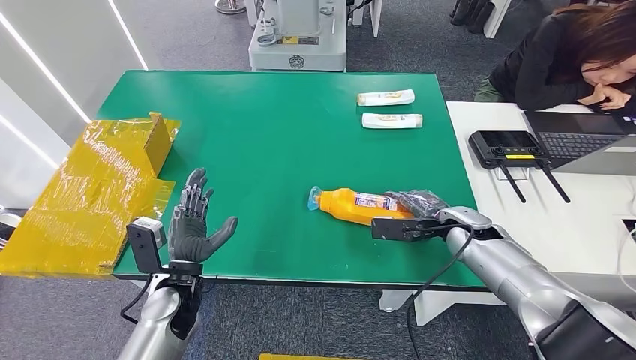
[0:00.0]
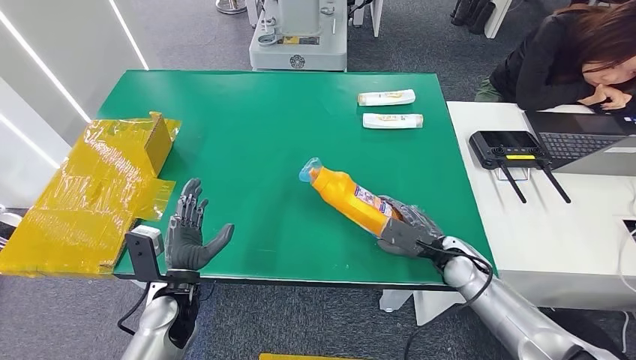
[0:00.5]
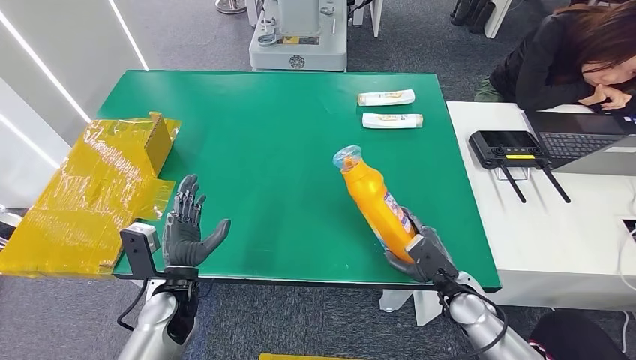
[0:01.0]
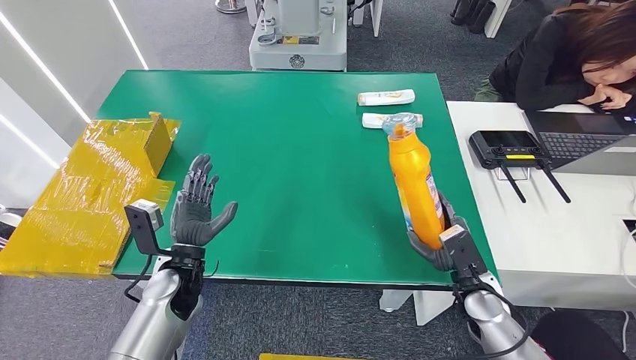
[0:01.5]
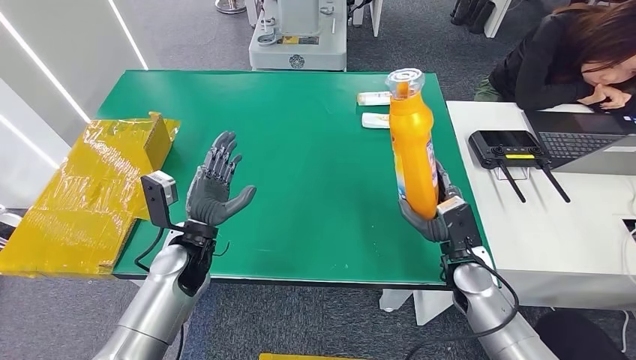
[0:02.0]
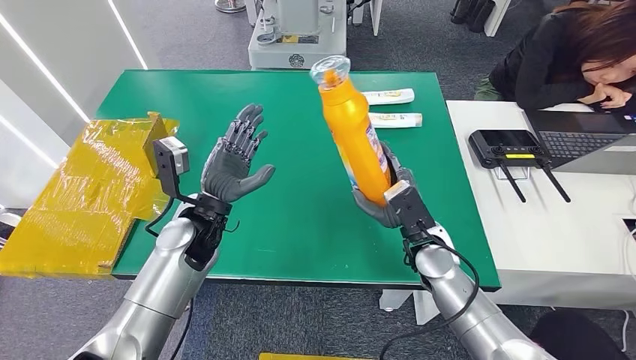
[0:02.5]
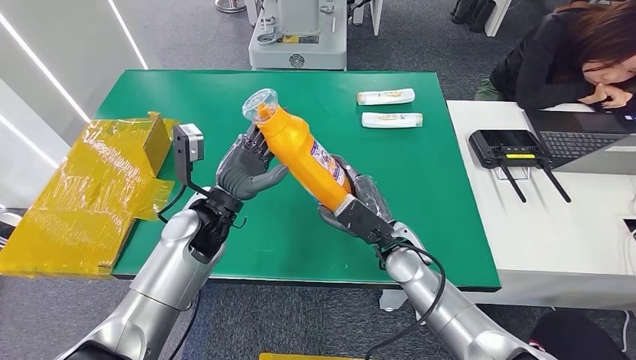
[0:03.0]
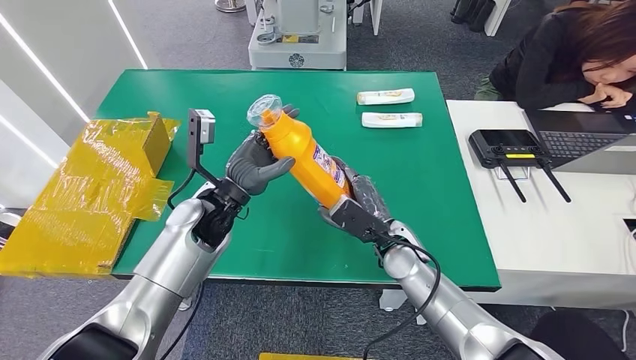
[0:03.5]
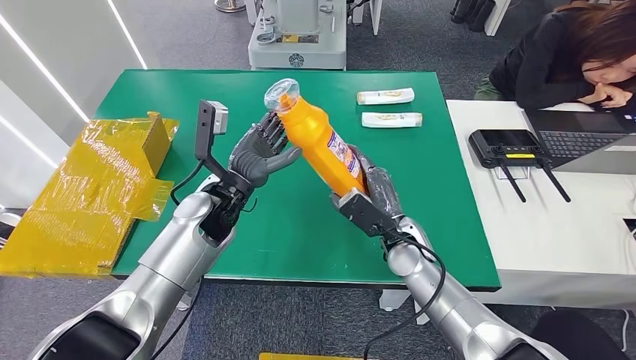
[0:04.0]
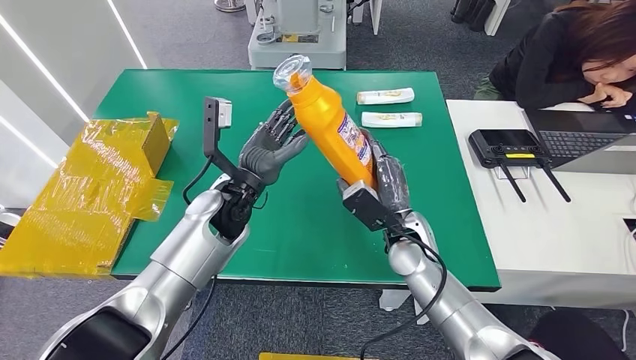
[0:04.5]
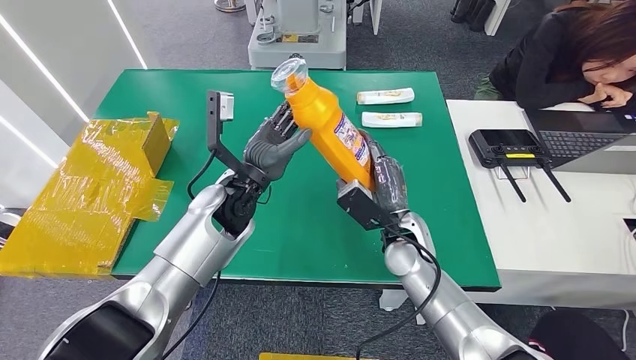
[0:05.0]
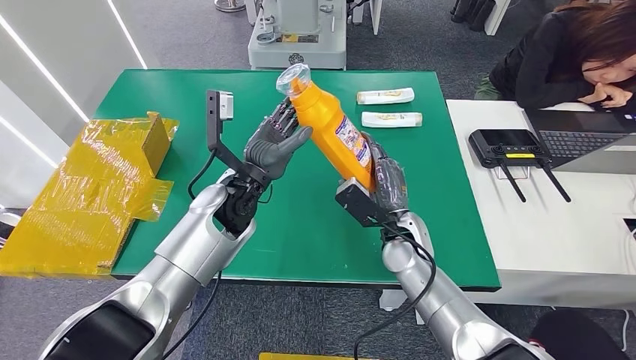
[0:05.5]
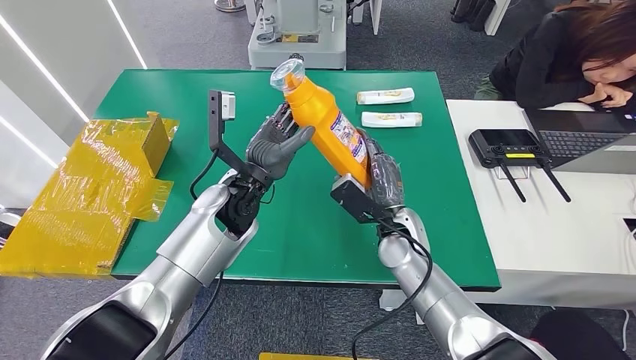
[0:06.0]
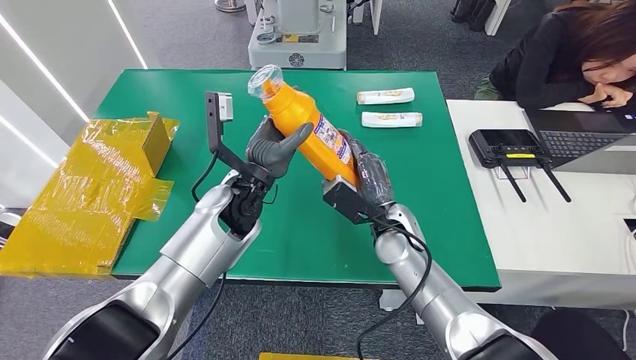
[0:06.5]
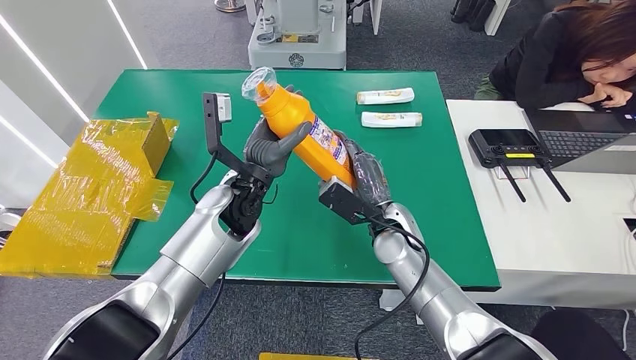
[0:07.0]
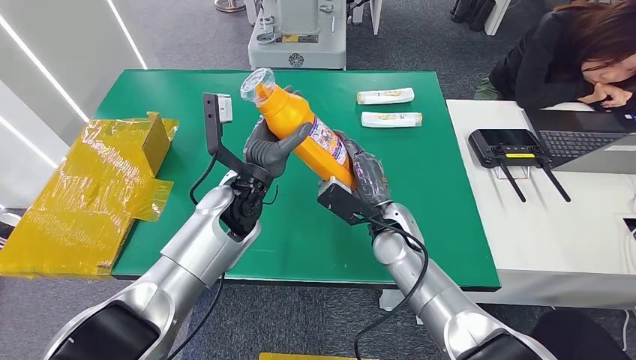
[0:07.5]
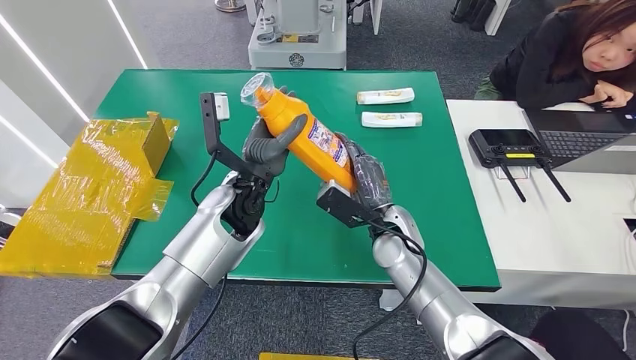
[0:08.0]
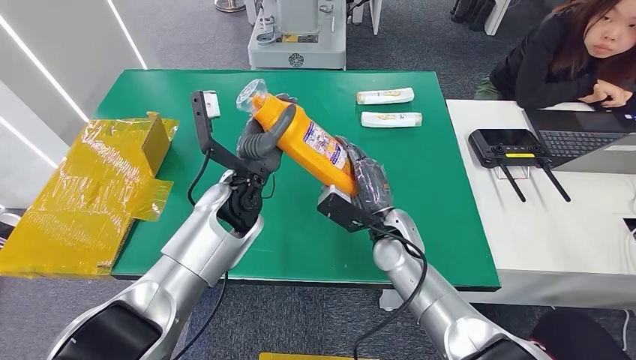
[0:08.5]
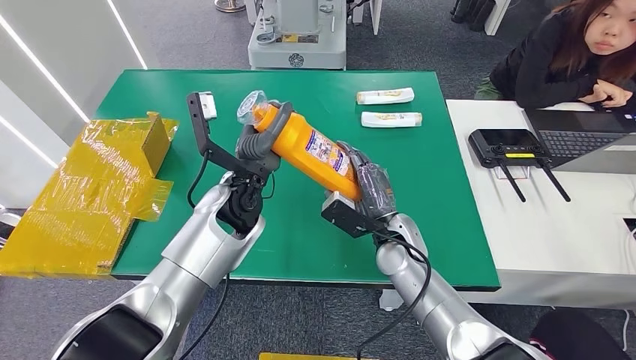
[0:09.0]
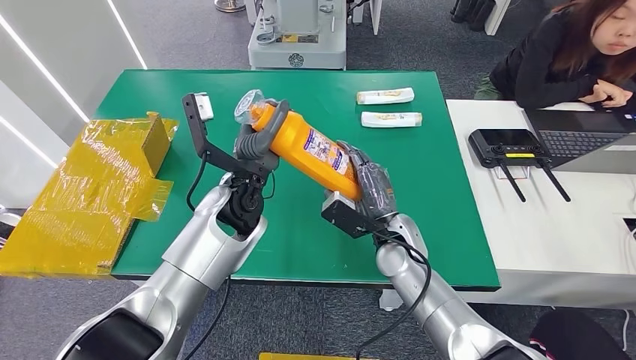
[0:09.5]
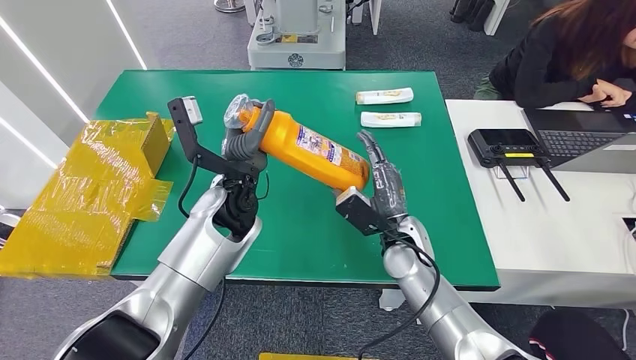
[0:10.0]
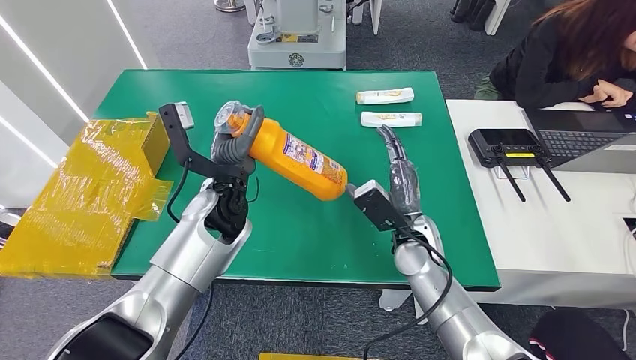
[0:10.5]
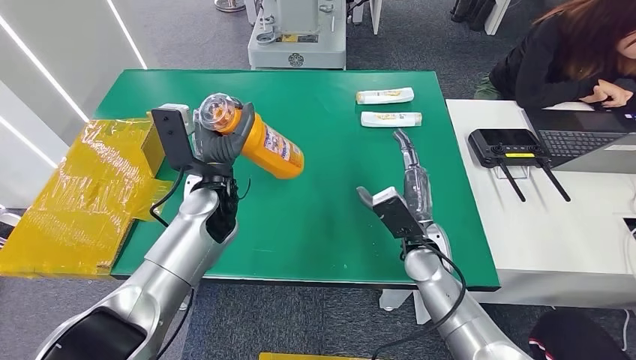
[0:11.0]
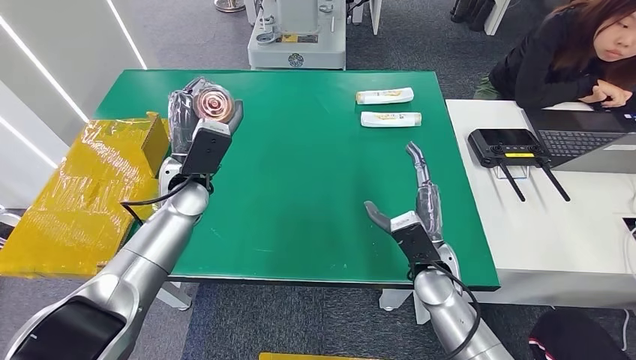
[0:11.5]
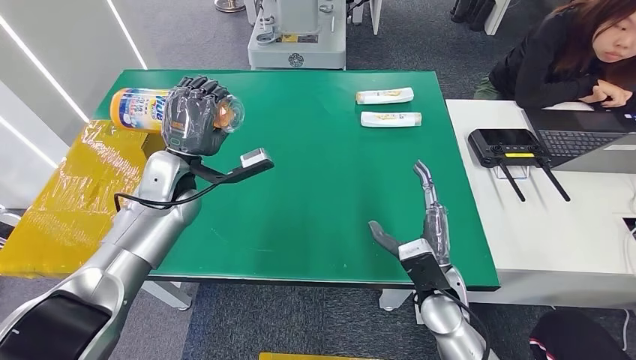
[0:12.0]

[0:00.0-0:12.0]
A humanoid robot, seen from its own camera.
Step, 0:00.0 to 0:02.5: Pick up the bottle from the table.
0:00.0 to 0:02.0: The right hand heads backward, covering some 5 cm. Meanwhile the left hand moves forward, some 5 cm.
0:04.0 to 0:08.0: The hands move only a little.
0:08.0 to 0:10.0: The hands move only a little.

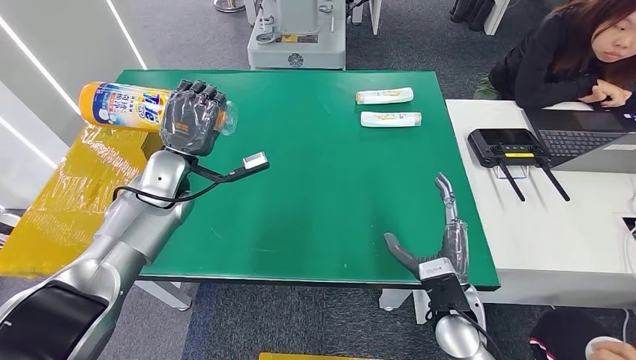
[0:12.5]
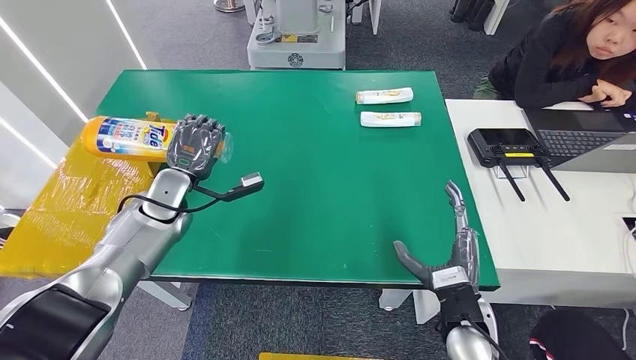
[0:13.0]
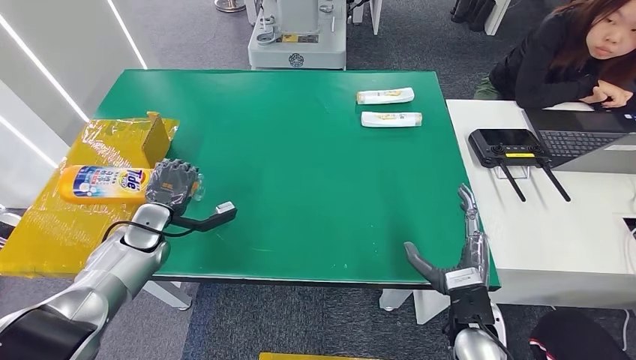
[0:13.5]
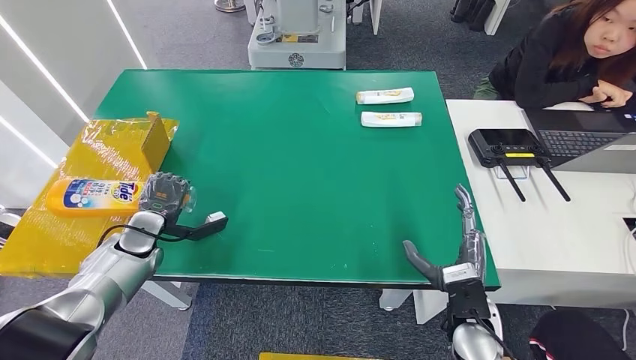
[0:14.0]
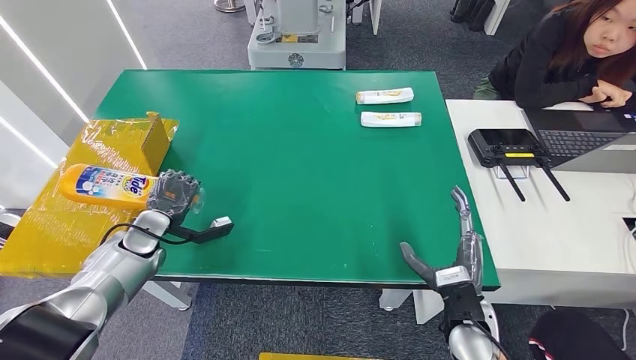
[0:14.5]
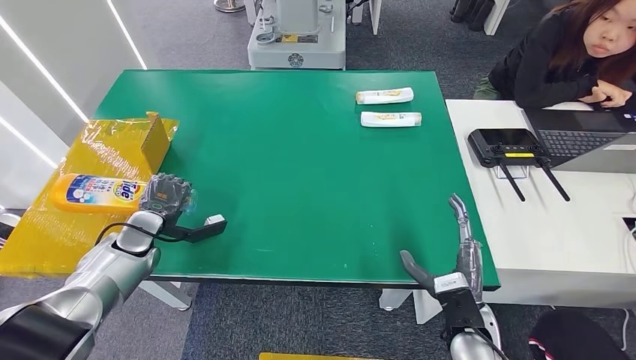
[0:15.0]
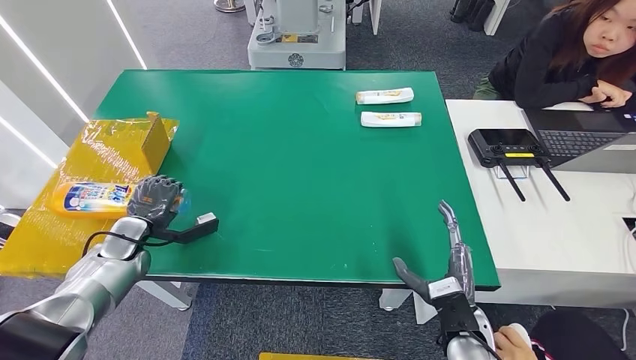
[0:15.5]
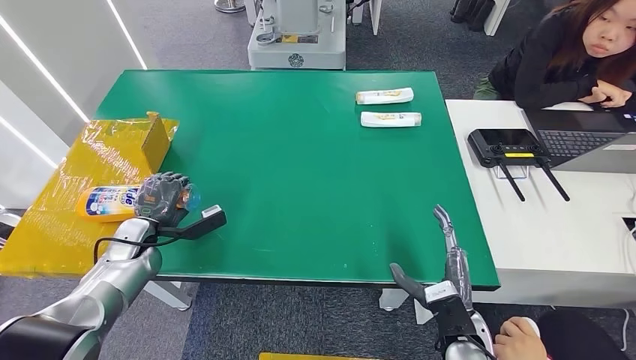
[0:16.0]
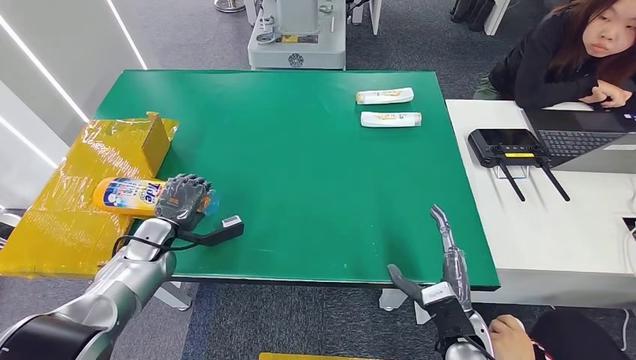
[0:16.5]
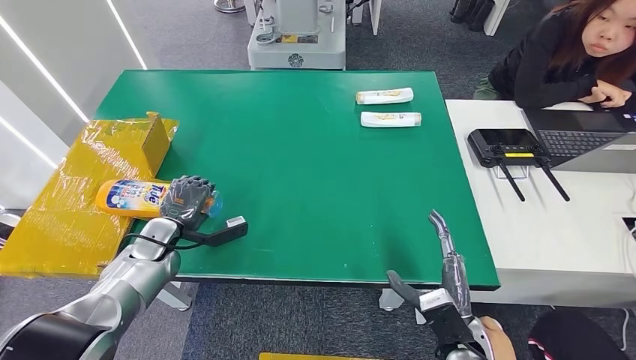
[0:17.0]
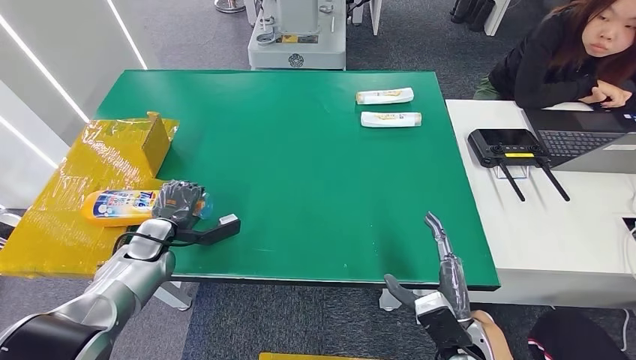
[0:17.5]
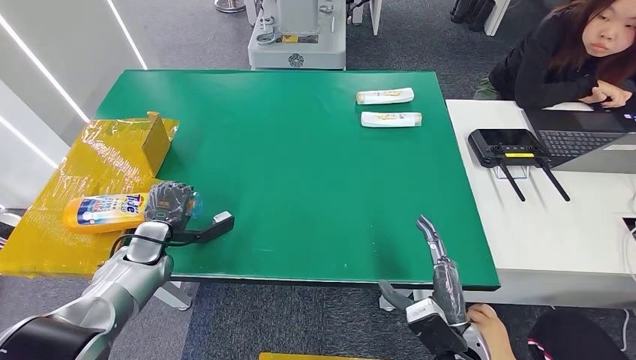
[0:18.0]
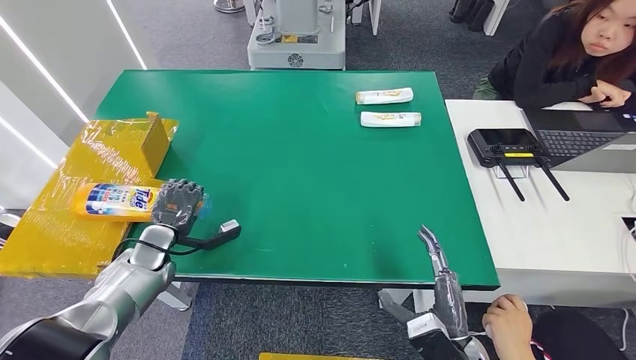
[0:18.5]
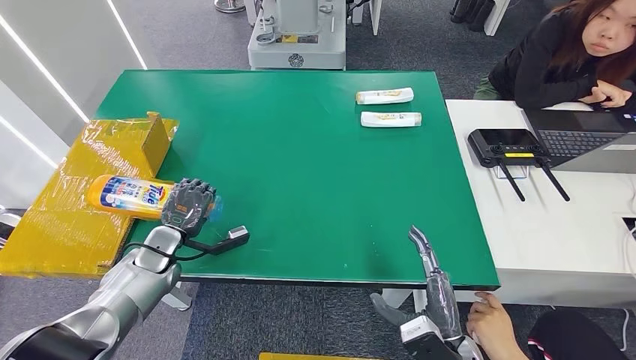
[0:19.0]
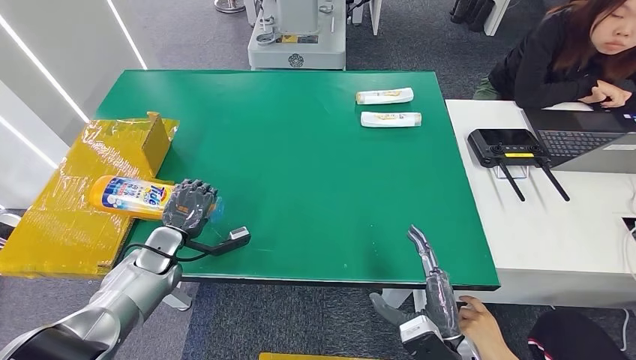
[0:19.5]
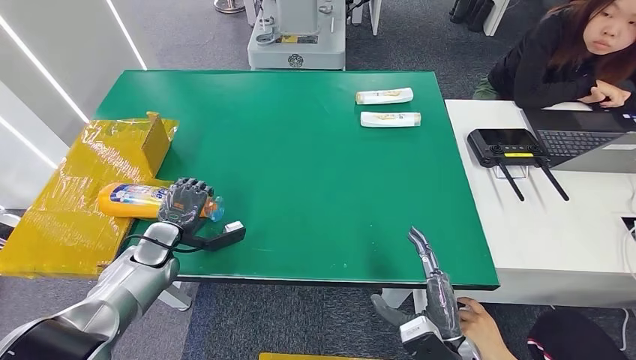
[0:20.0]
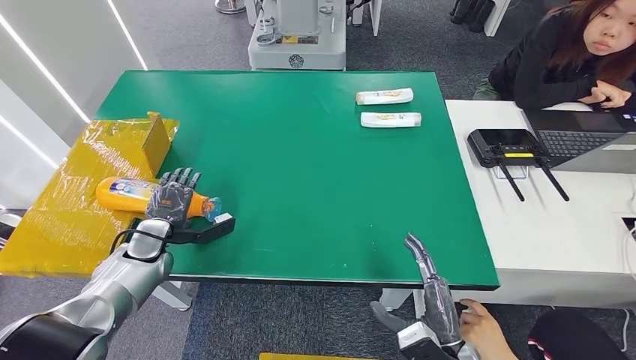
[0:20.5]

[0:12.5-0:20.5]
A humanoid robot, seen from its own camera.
Step, 0:12.5 to 0:20.0: Turn the bottle to the front side.
0:12.5 to 0:14.5: The left hand travels downward and to the left by some 15 cm.
0:16.5 to 0:18.5: The hands make only small movements.
0:18.5 to 0:20.5: The hands move only a little.
